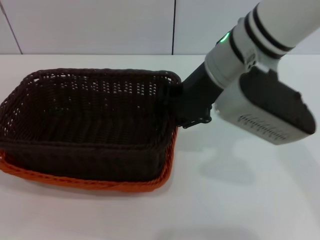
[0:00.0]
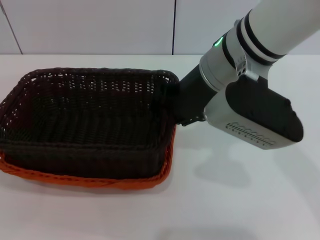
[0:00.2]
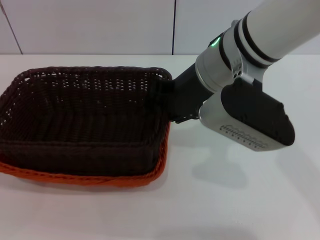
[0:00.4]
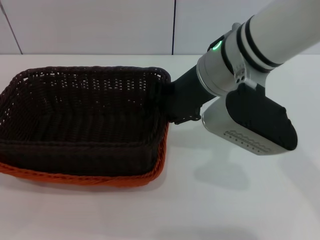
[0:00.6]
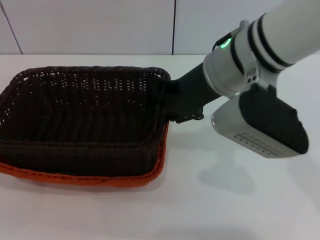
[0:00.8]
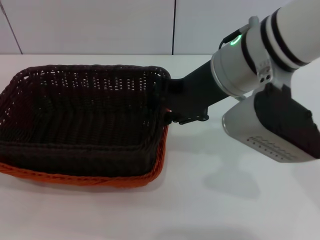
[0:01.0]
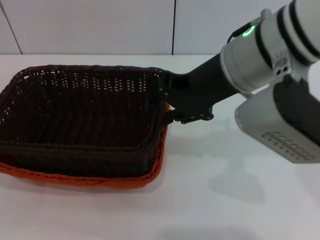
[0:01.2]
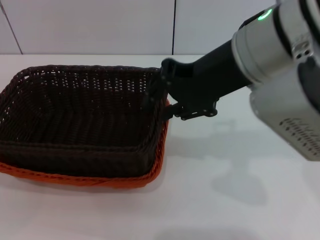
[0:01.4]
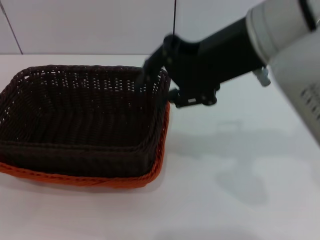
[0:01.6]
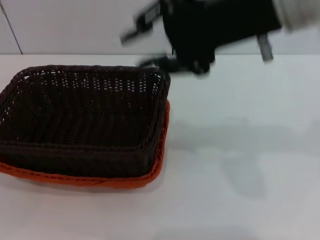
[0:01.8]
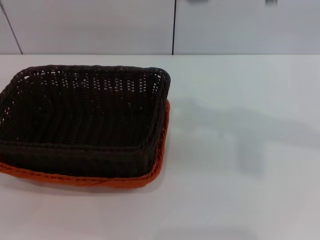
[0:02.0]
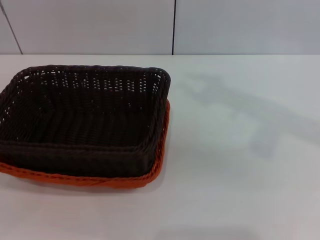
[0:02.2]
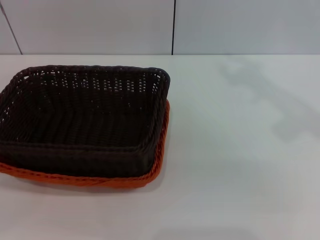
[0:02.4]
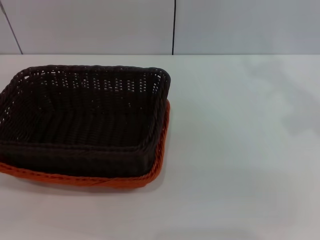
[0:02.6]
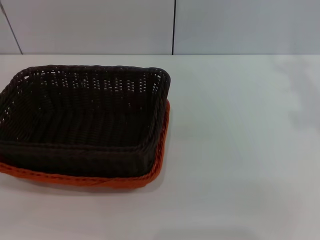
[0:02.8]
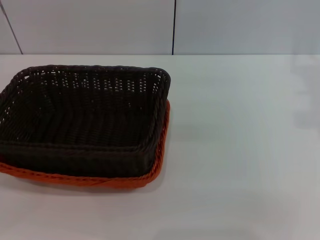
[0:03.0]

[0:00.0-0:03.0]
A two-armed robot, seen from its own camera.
0:00.0 to 0:01.6: The right gripper shifts some 10 cm upward and backward.
0:01.6 to 0:03.0: The left gripper travels forward by approximately 5 cm, while the right gripper is displaced to the right by some 15 cm.
